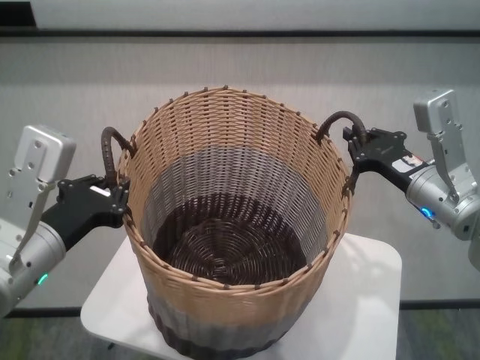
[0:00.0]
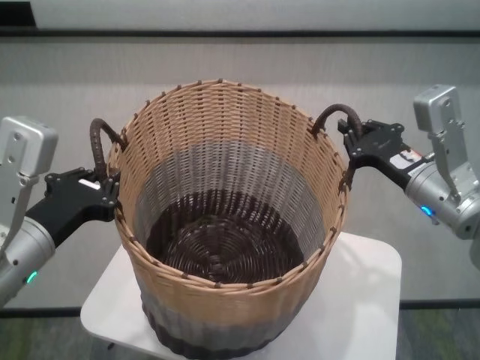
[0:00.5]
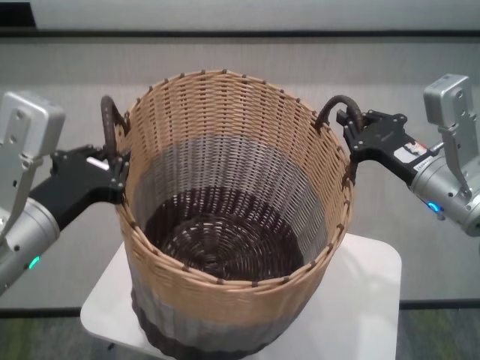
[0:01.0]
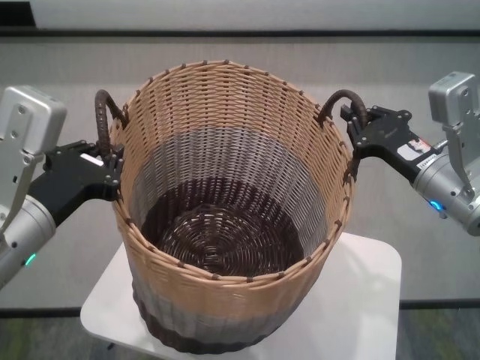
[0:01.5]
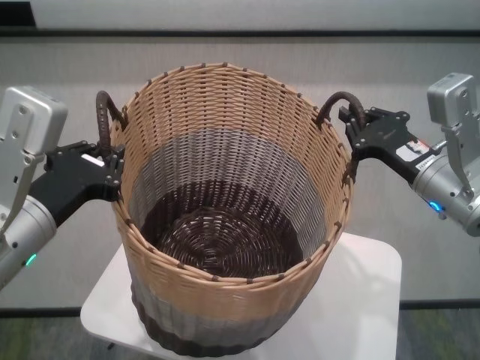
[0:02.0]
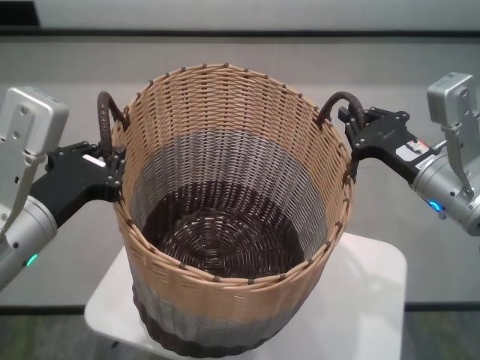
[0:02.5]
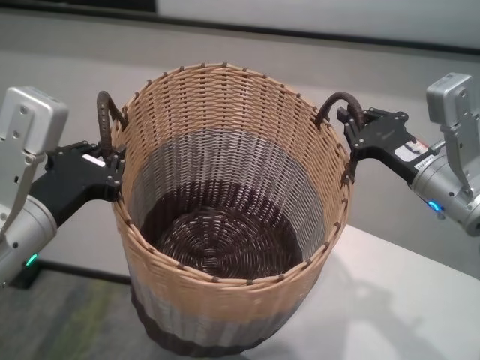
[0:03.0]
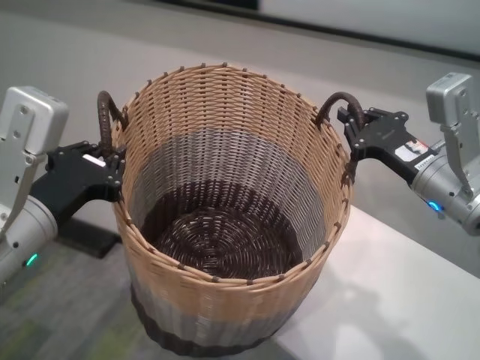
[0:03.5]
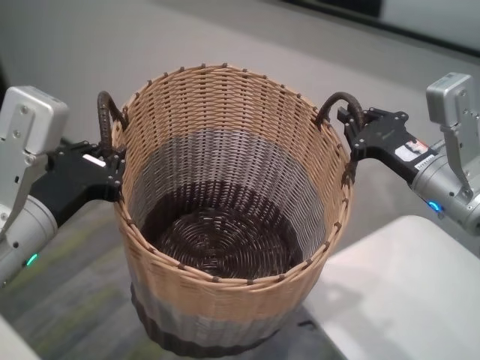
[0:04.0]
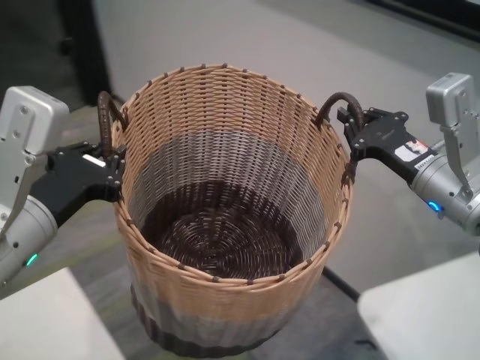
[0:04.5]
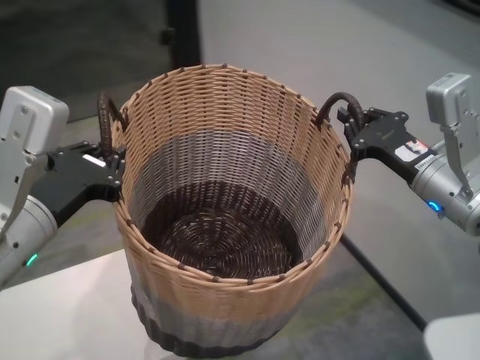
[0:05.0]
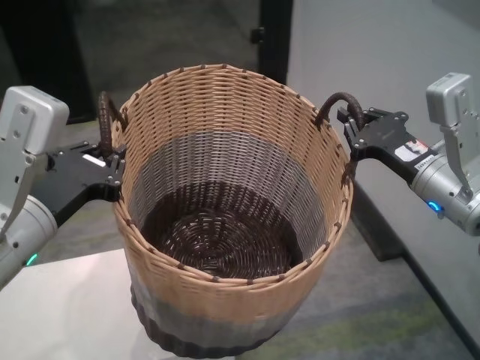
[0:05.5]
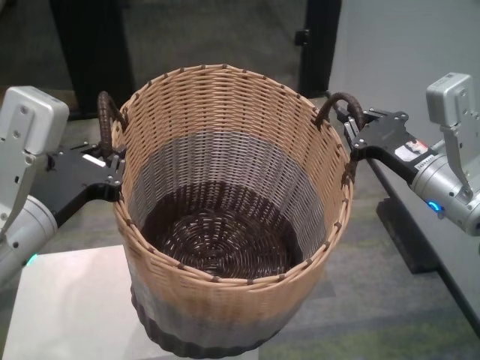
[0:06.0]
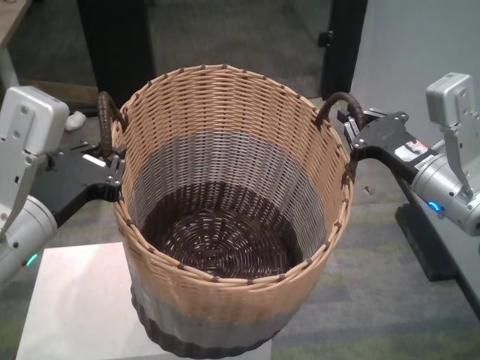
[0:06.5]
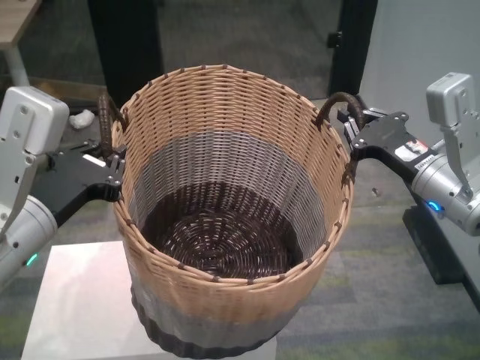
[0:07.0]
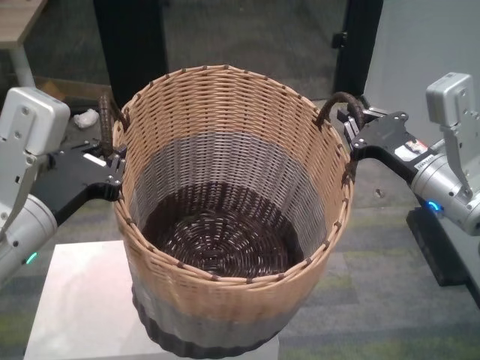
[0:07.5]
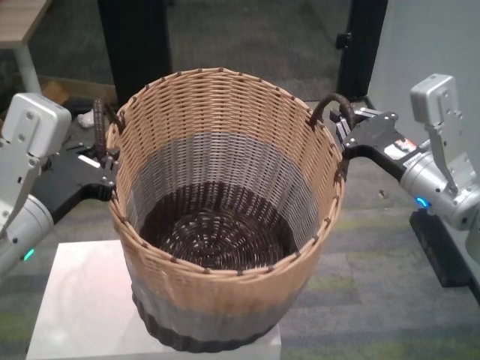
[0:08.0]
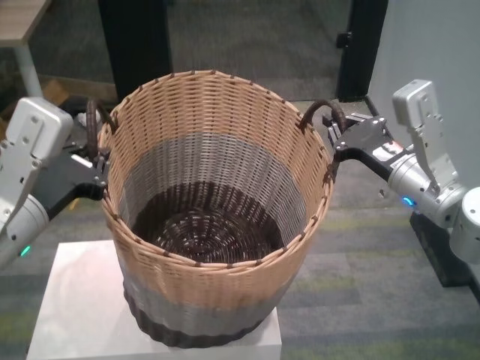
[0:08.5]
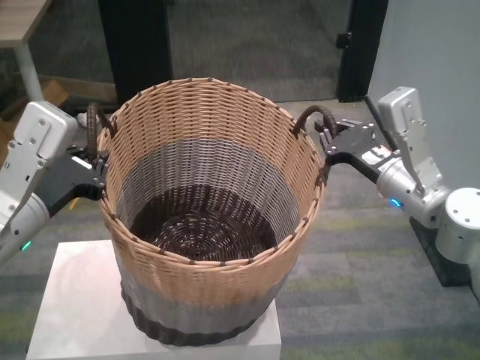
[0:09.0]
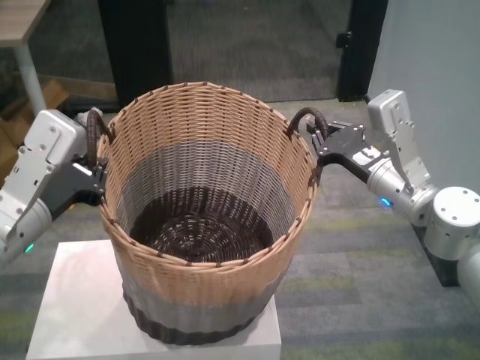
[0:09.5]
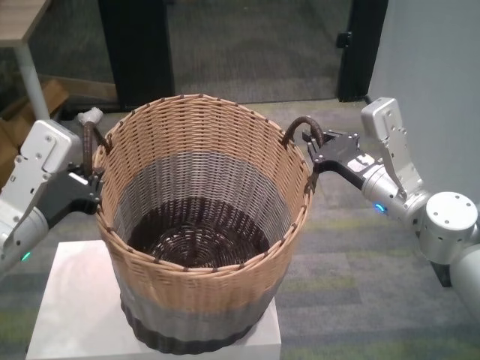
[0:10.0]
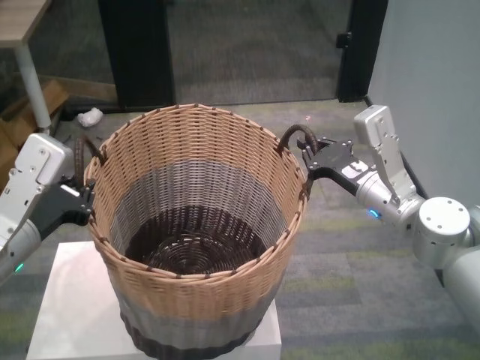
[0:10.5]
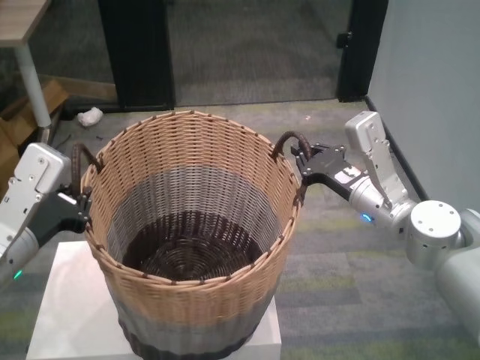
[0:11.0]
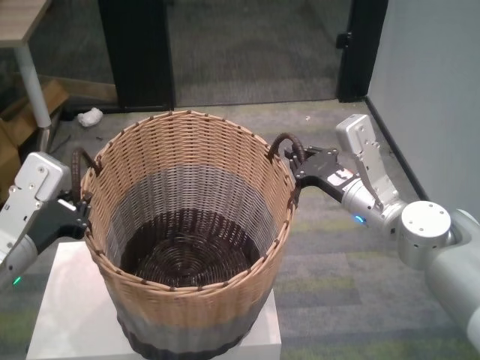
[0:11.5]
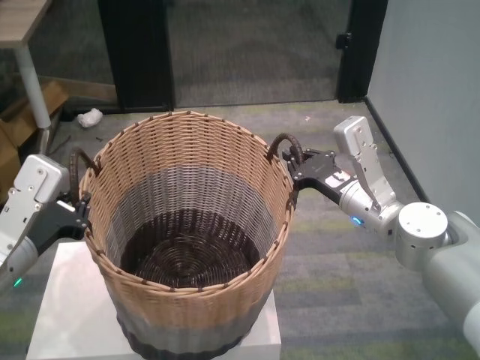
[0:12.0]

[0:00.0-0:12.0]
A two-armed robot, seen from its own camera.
Task of the whole recording: carry the clothes basket in coordination with both hands.
Step, 0:00.0 to 0:07.5: Move the basket above the other table.

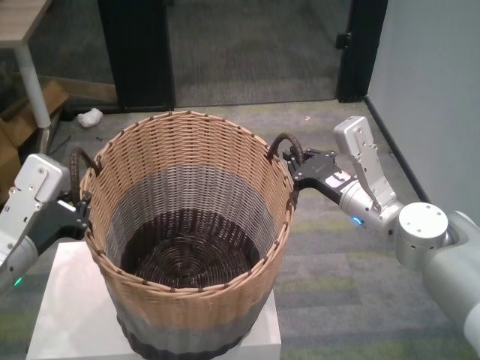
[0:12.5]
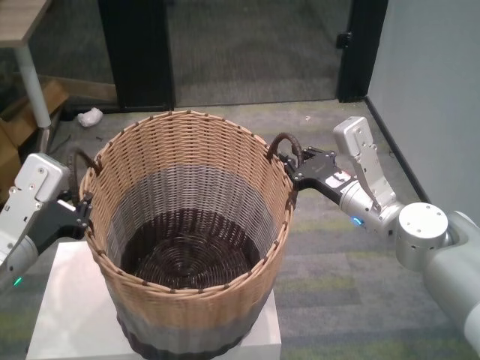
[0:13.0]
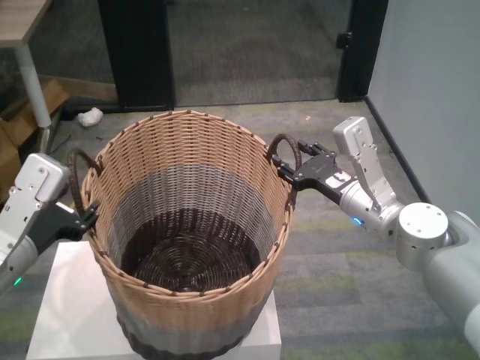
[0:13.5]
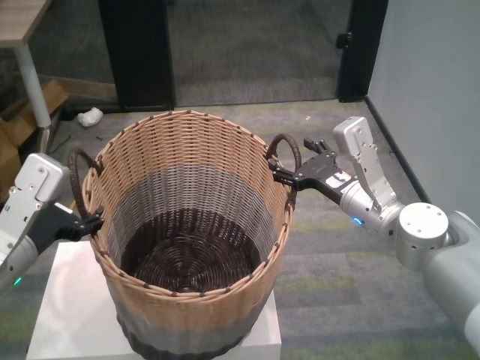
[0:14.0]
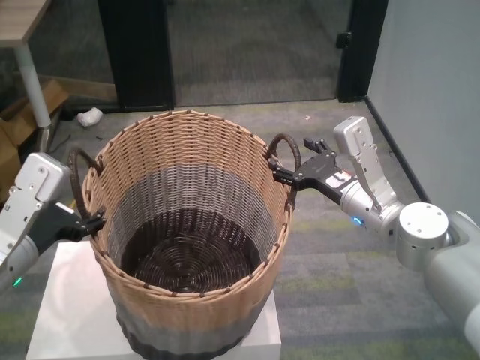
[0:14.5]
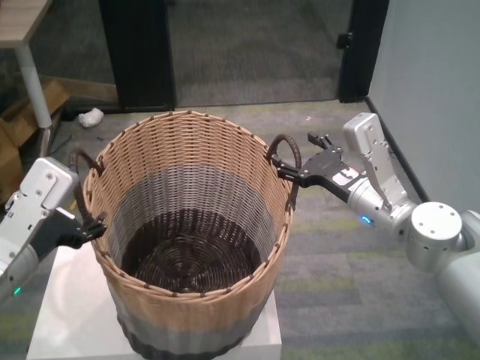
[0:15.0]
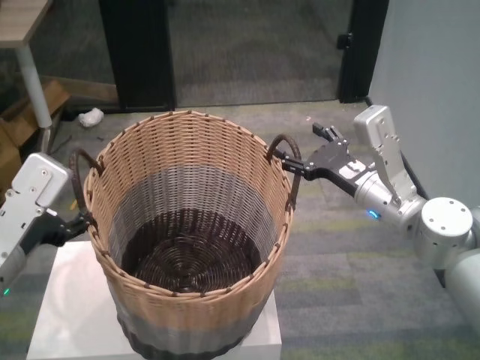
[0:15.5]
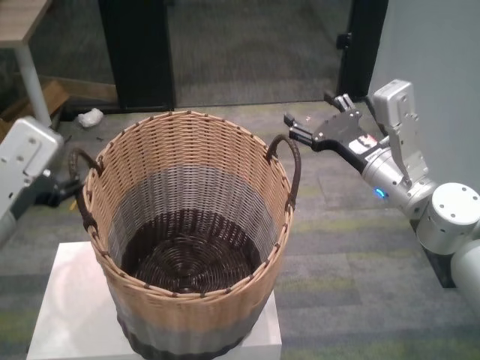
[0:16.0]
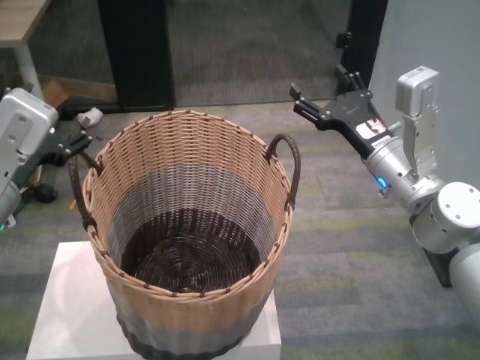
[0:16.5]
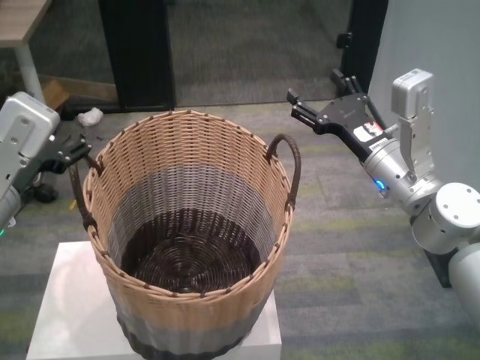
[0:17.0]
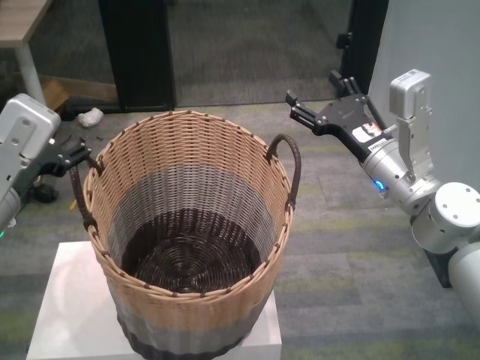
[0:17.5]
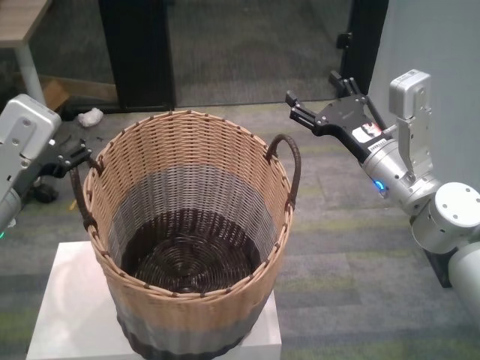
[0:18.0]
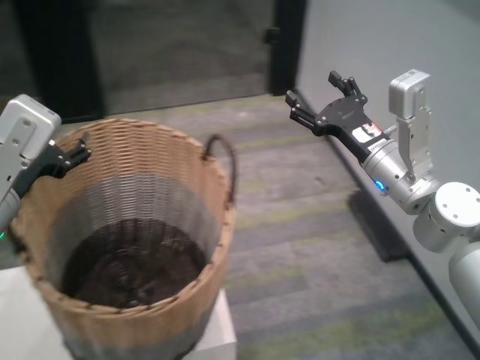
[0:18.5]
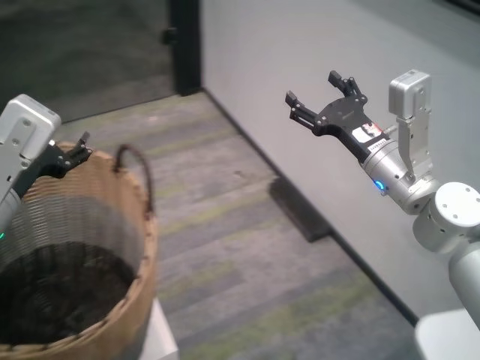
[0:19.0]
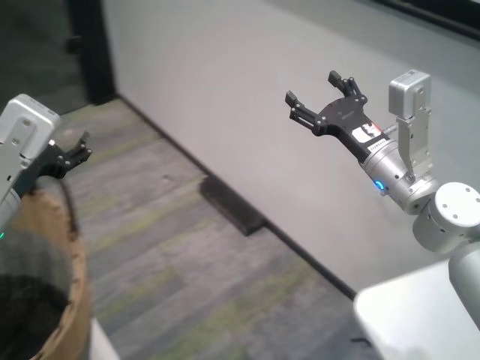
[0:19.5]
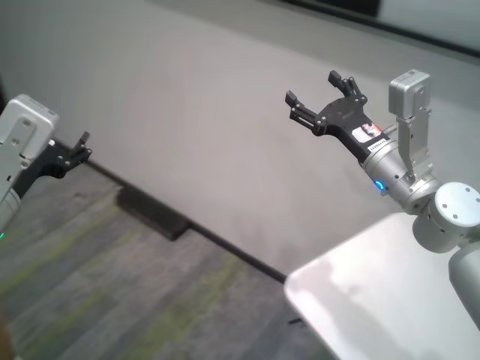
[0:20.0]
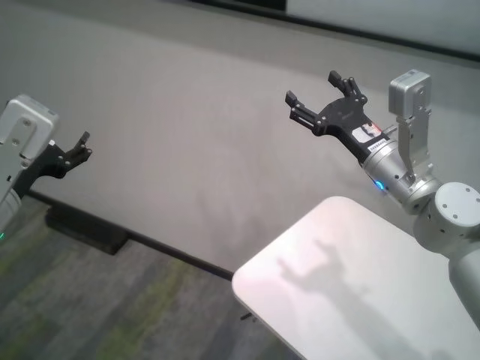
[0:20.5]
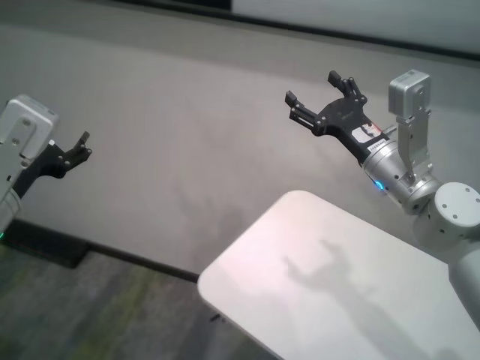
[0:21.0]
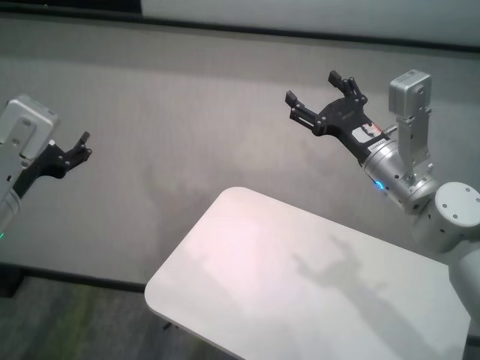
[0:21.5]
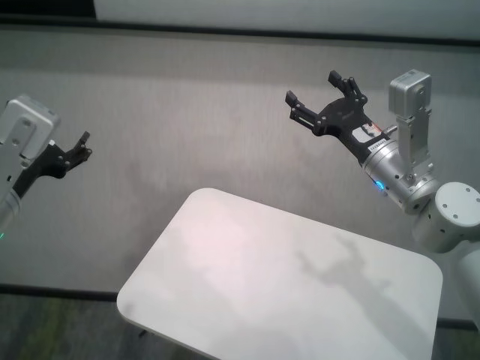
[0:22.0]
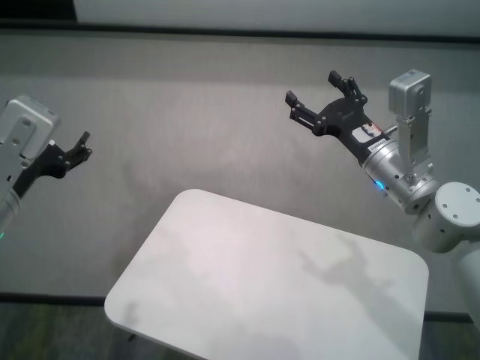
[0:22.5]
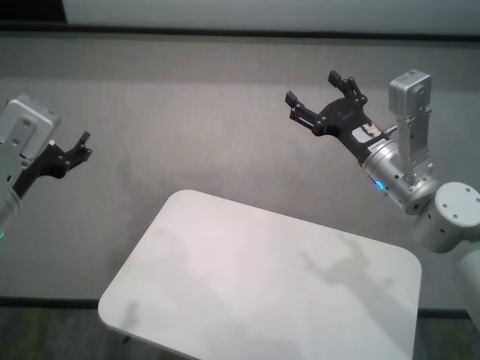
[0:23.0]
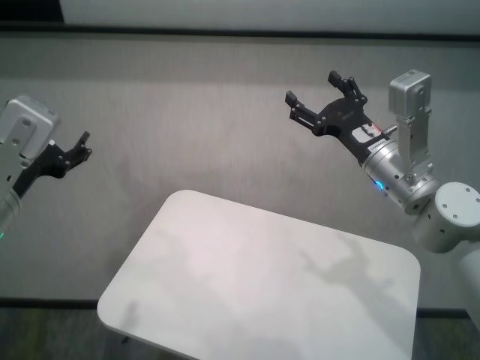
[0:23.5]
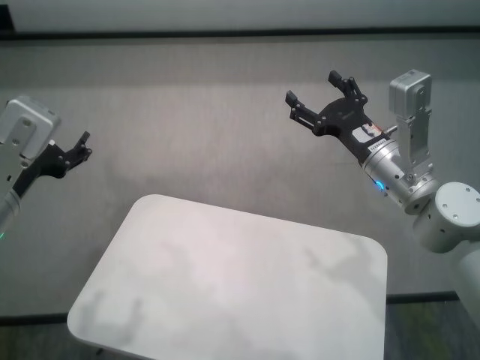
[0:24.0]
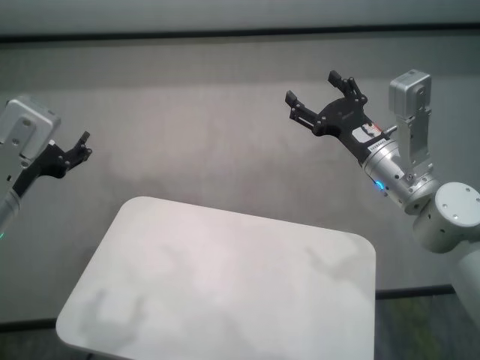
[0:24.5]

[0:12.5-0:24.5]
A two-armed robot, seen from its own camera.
Task of the whole recording: carry the clothes basket in coordination with both hands.
Step, 0:12.5 to 0:15.0: Place the basket on the table with both grippers.
